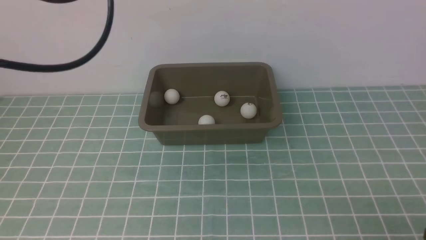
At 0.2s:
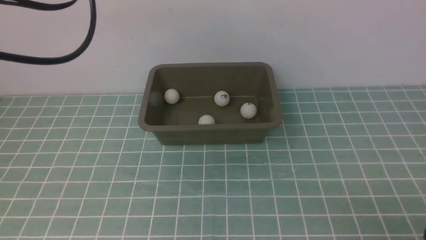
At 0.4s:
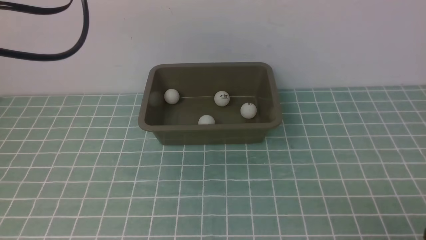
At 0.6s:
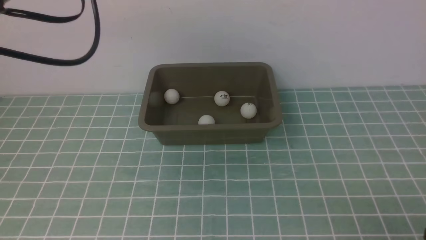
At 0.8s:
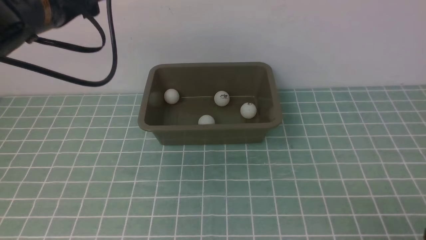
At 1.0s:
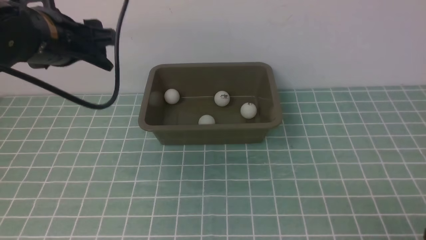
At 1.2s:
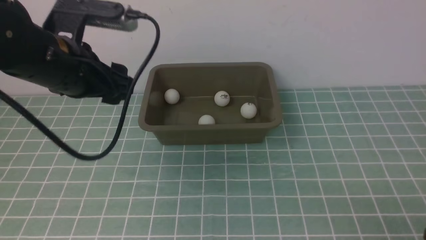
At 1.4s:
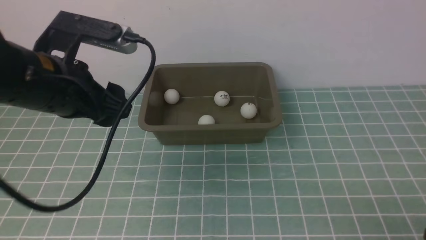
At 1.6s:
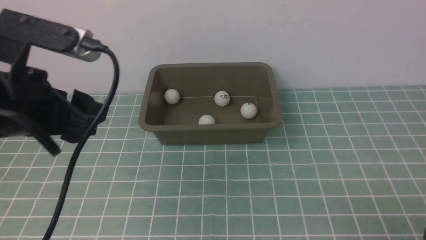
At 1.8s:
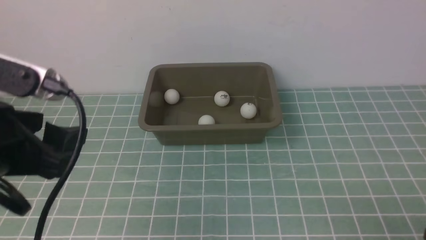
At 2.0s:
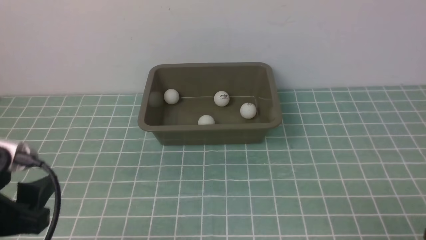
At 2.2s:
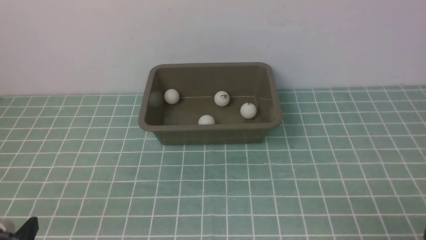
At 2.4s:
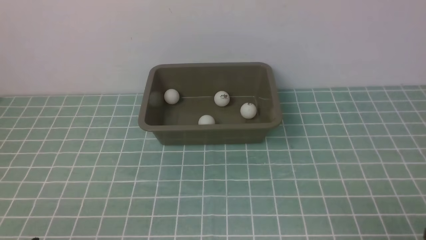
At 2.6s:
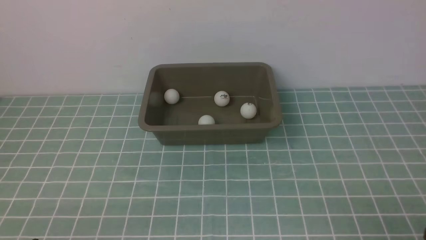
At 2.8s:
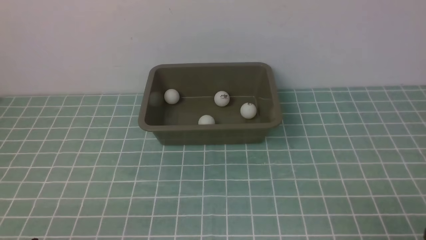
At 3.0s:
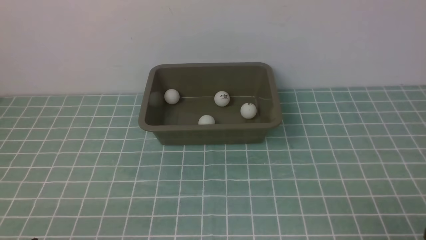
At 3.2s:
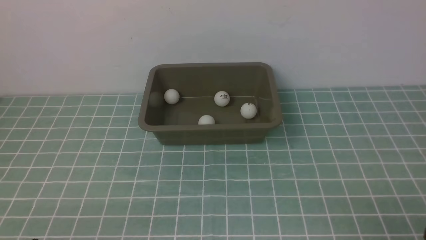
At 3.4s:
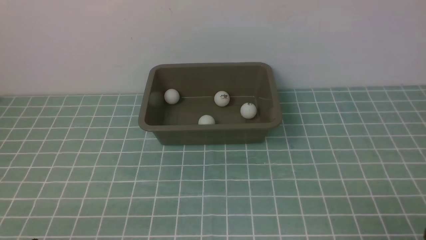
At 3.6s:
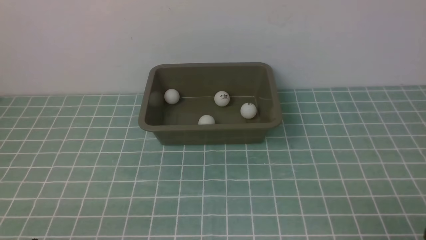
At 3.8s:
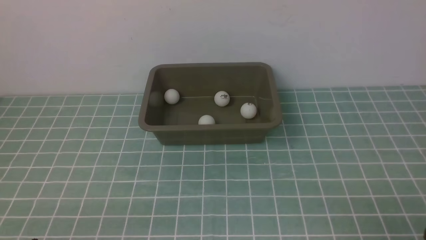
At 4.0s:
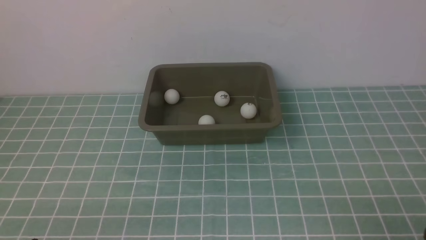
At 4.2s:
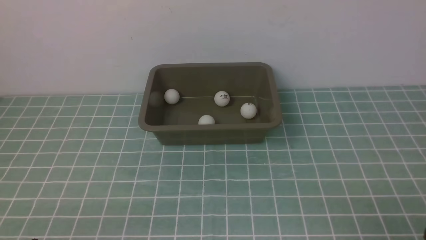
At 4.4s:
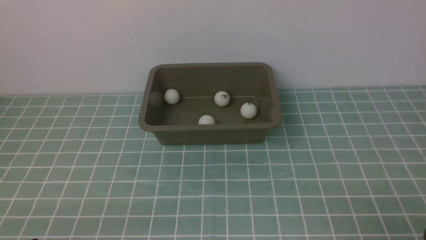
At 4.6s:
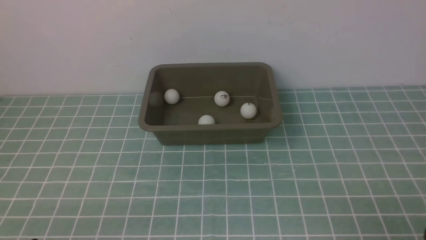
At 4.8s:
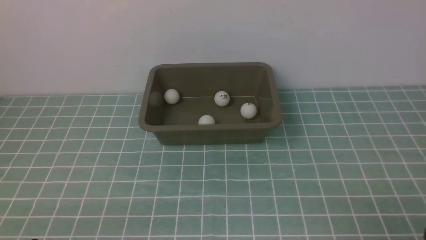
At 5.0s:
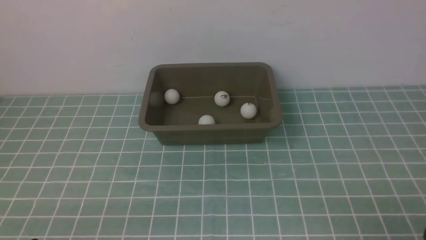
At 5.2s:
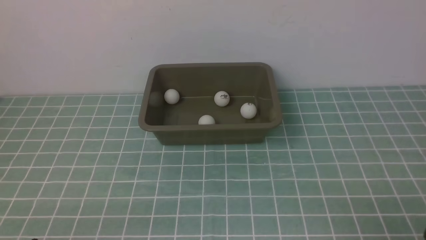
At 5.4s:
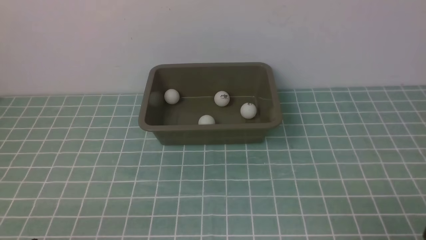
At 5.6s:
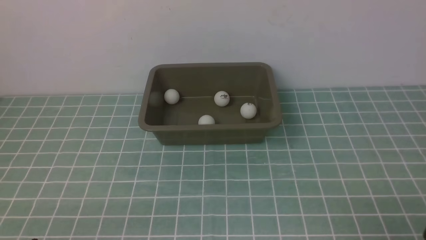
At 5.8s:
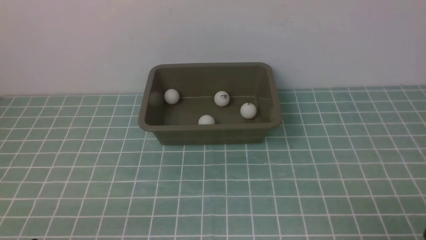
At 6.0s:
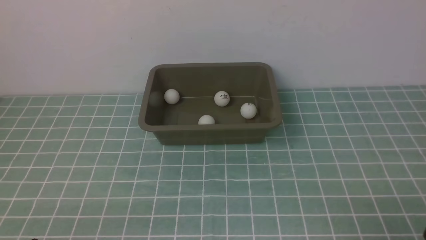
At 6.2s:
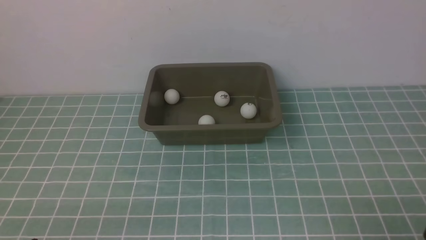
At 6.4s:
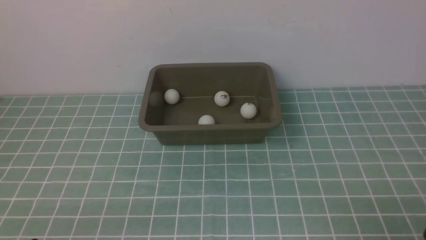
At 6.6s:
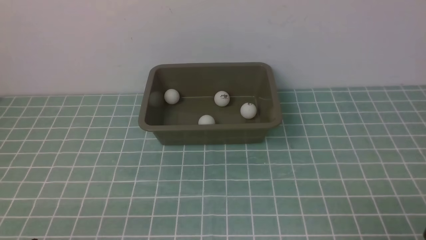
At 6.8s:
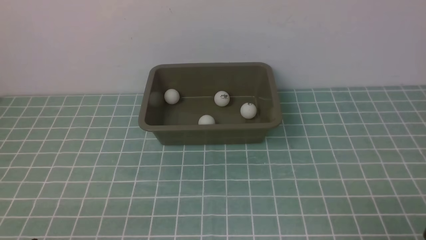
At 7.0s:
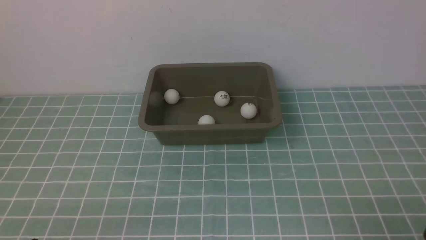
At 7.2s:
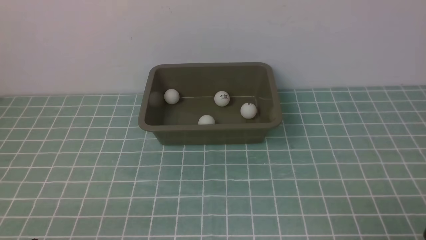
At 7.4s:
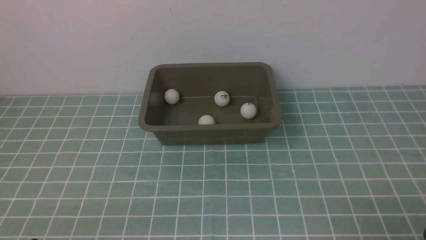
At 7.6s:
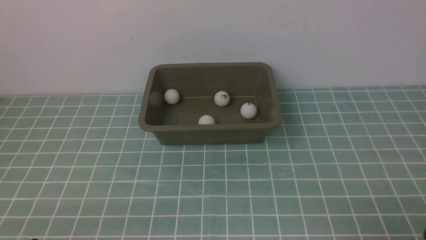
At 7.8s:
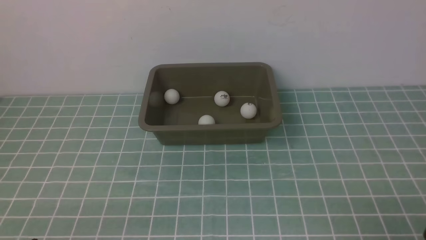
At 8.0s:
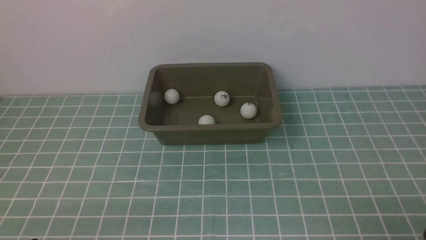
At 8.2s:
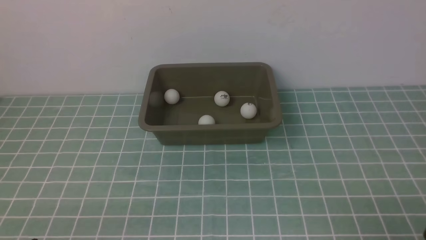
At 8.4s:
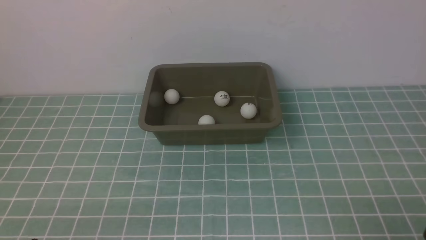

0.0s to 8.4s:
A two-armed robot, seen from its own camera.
0.0s to 1.4s: The left gripper goes approximately 15 cm downward and backward.
1.4s to 2.8s: The left gripper travels backward and downward by roughly 25 cm.
2.8s to 4.2s: Both grippers stay put.
5.6s to 8.4s: The two grippers keep their place.
